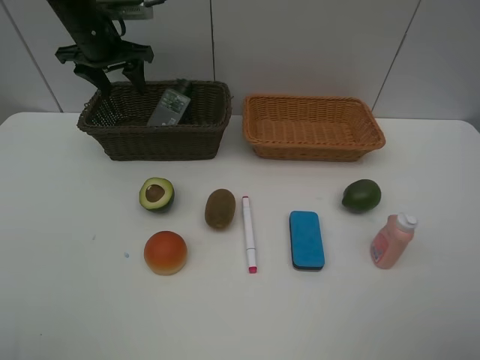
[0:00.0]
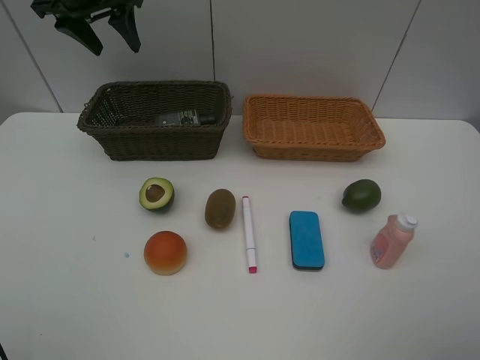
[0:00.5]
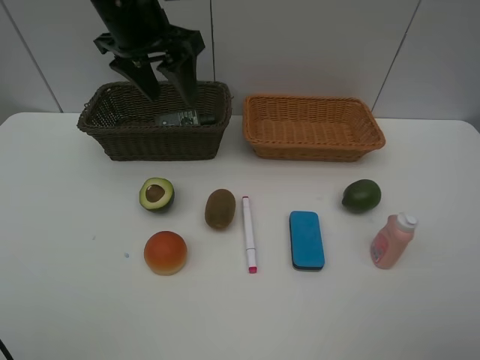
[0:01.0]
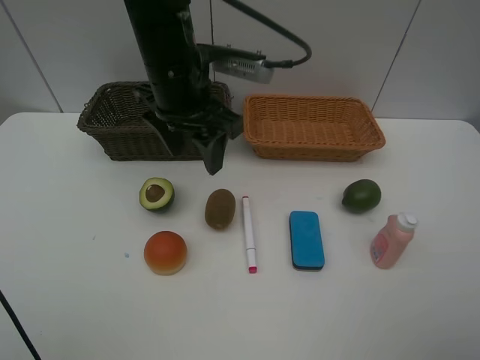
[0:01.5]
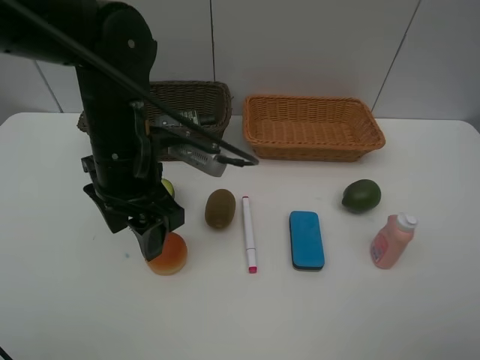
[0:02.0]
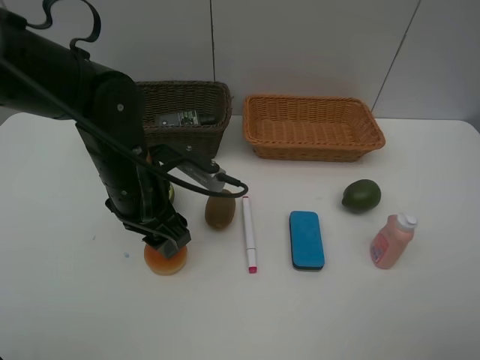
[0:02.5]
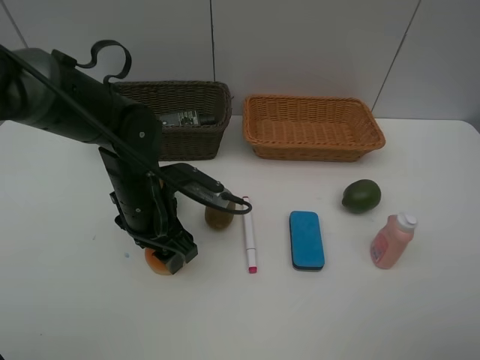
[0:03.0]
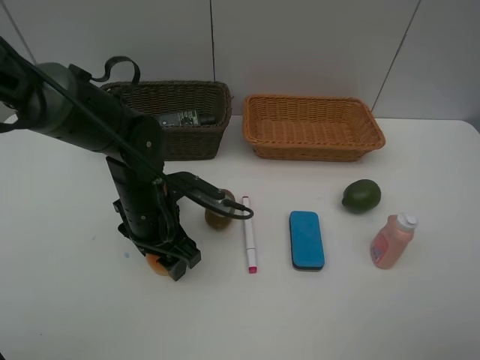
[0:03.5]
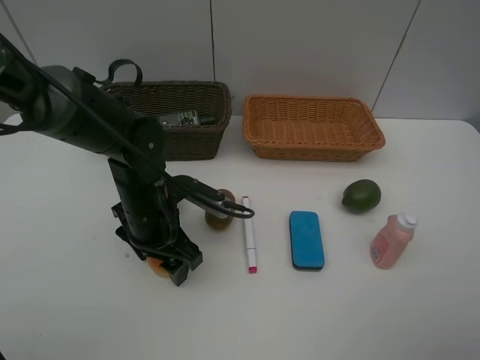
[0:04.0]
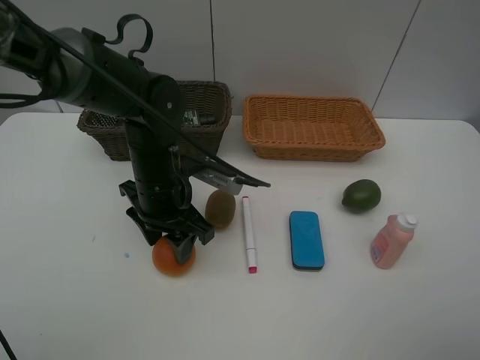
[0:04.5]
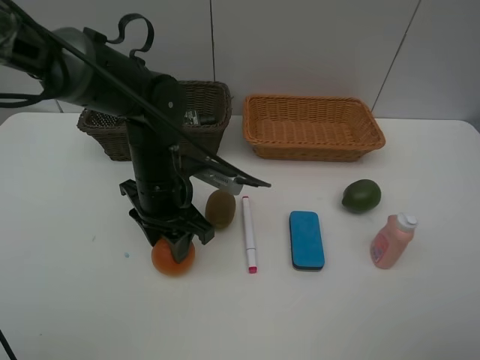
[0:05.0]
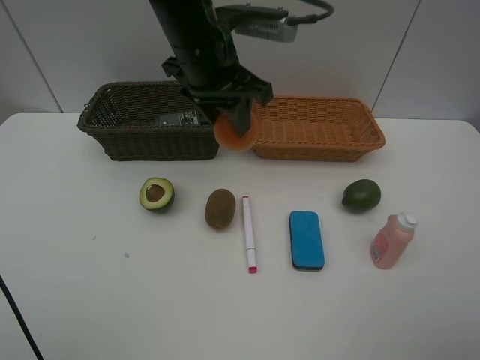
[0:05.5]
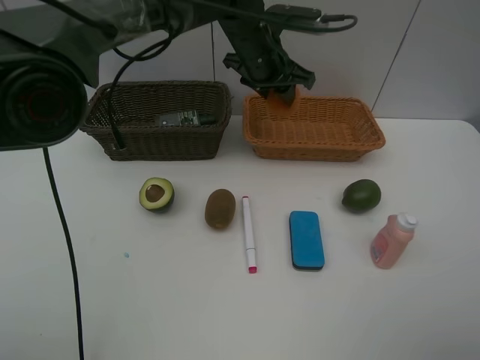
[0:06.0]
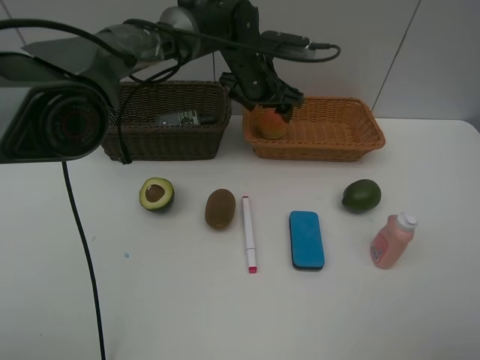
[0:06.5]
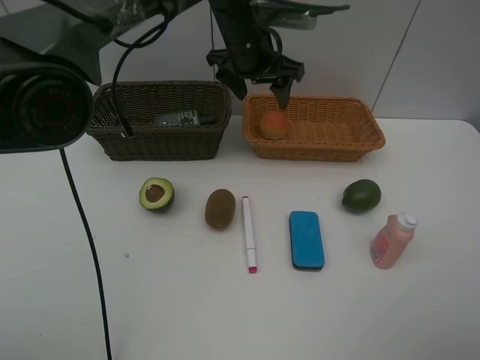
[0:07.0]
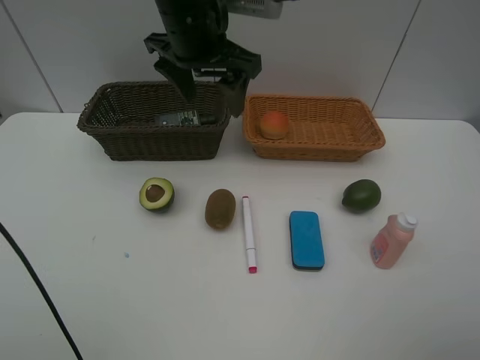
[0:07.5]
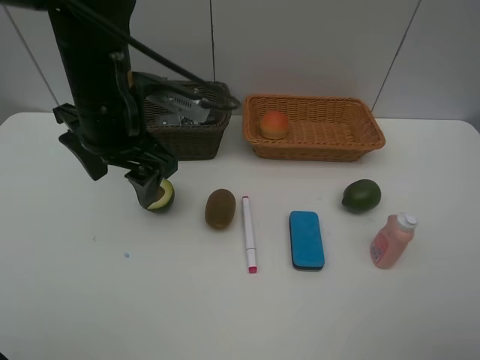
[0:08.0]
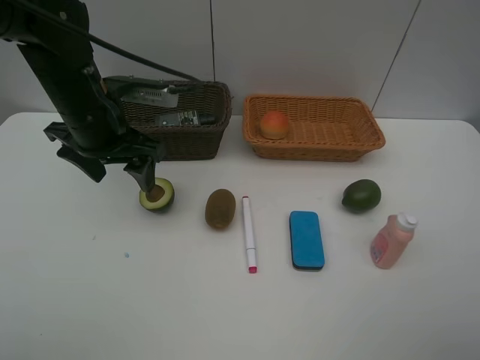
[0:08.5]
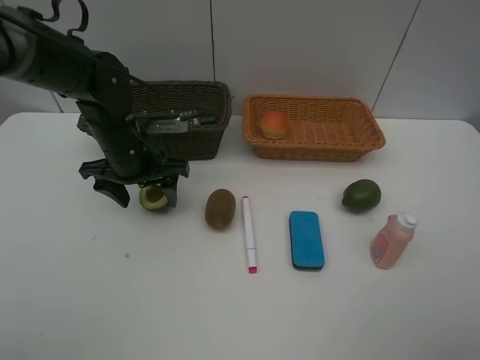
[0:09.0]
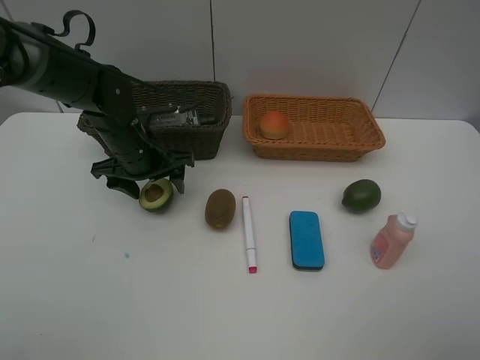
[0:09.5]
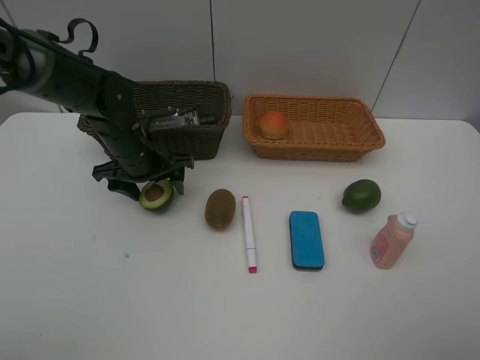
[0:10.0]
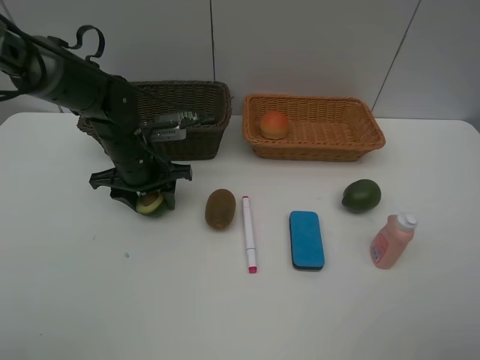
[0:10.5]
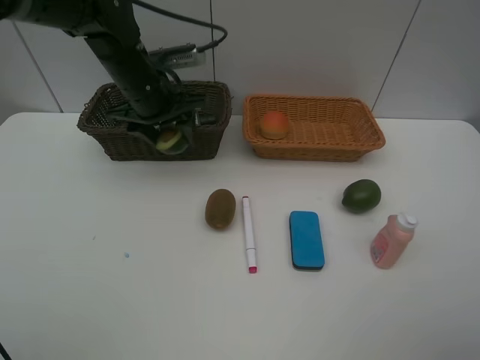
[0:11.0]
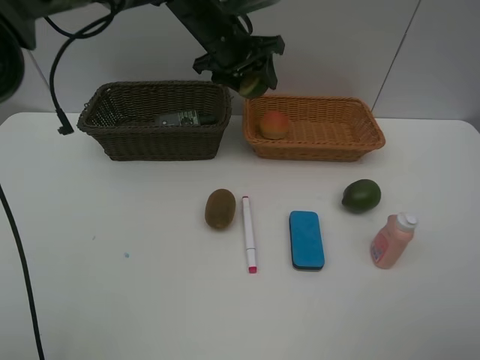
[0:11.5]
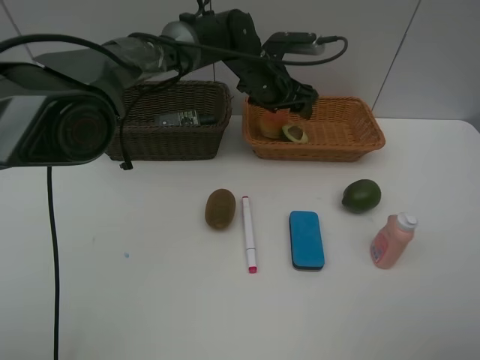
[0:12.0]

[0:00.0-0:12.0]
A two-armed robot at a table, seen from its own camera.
Task of the whole recording: Place multiple objects separately in different baskets.
Step, 0:00.5 to 0:05.0: Pick up egg yolk pastry with left gripper.
Step, 0:05.5 to 0:06.5: Place the egg yolk pastry in the light basket with left gripper.
Step, 0:07.0 to 0:10.5: Pick up the avocado with left gripper.
0:00.0 to 0:02.0: The left gripper goes some 25 cm backward and to the right.
0:02.0 to 0:04.0: The left gripper moves downward, roughly 10 cm.
0:04.0 to 0:06.0: The left gripper heads forward, to the right and upward, covering approximately 25 cm, and closes.
0:06.0 to 0:08.0: The left gripper moves backward and to the left, roughly 25 cm, and opens its fingers.
0:08.0 to 0:10.0: The left gripper is displaced downward and forward by about 15 cm.
0:10.0 to 0:12.0: The left gripper shifts approximately 20 cm to the right and forward, and closes, then reopens.

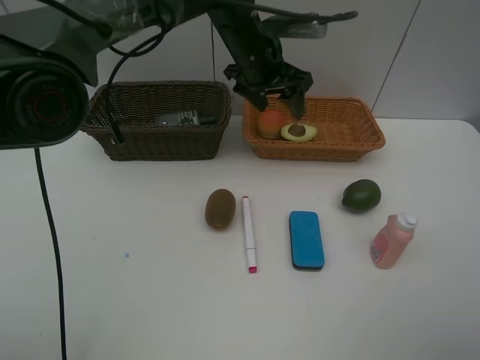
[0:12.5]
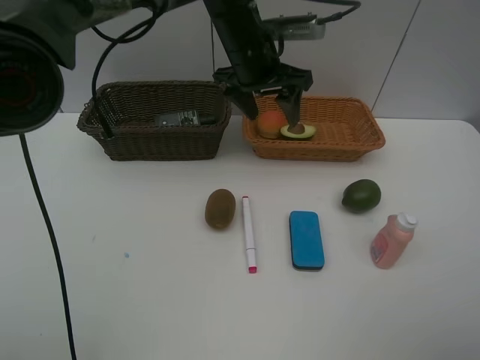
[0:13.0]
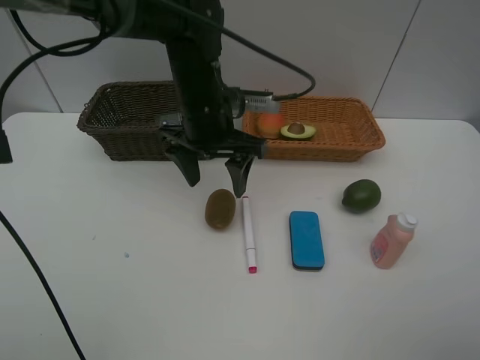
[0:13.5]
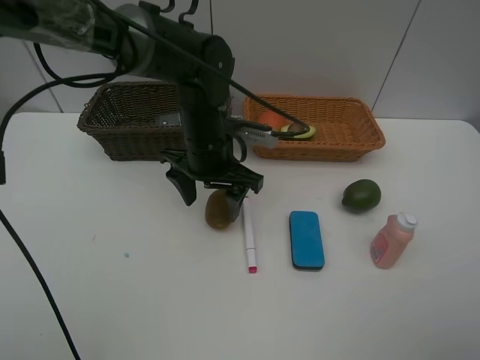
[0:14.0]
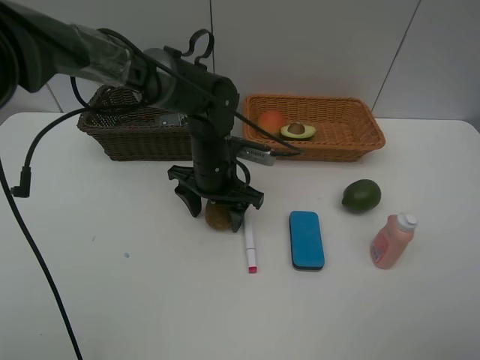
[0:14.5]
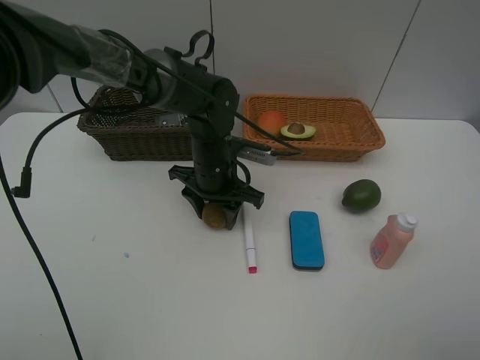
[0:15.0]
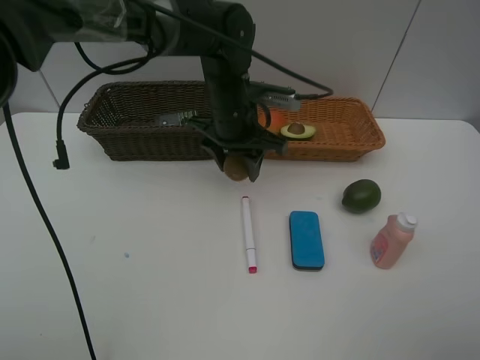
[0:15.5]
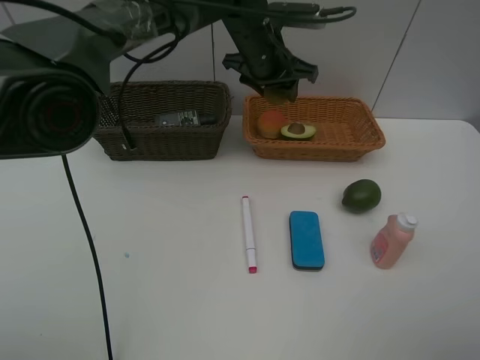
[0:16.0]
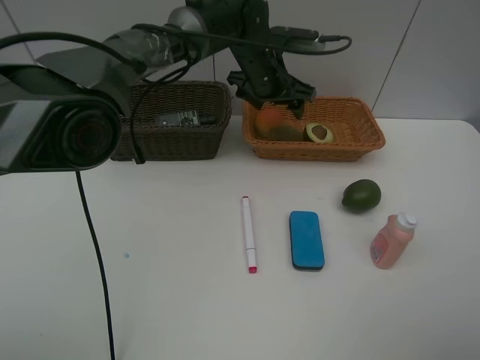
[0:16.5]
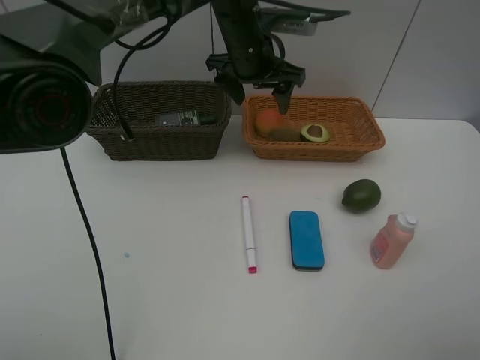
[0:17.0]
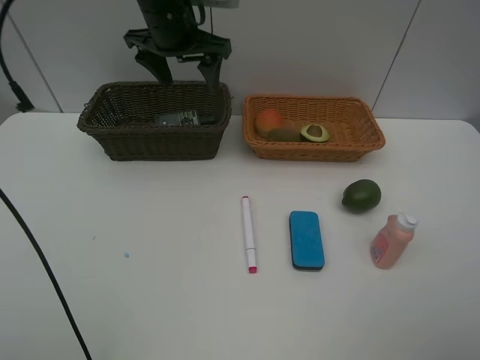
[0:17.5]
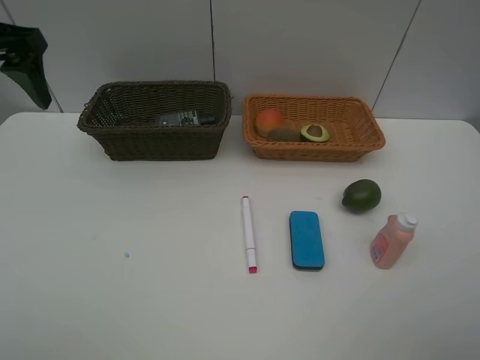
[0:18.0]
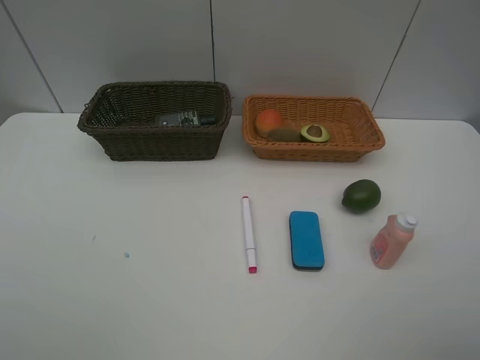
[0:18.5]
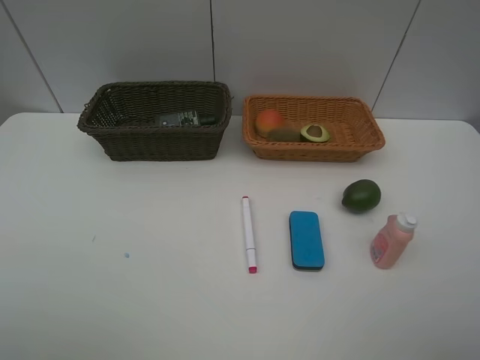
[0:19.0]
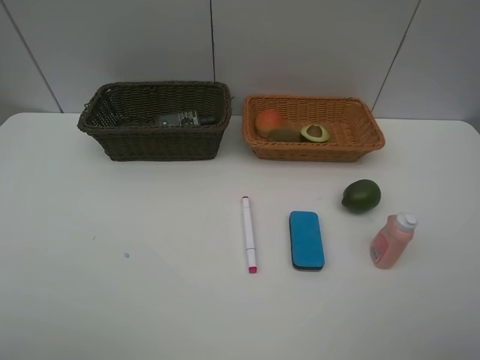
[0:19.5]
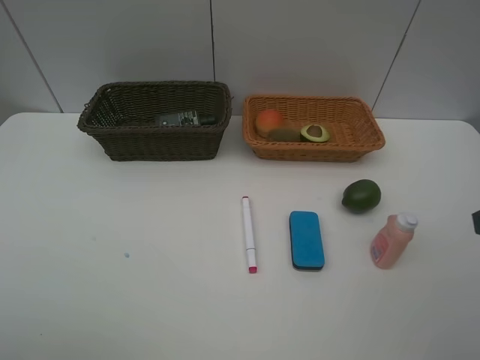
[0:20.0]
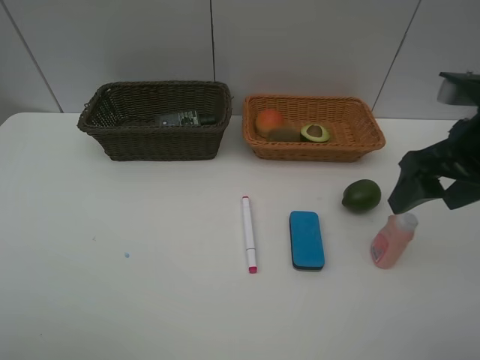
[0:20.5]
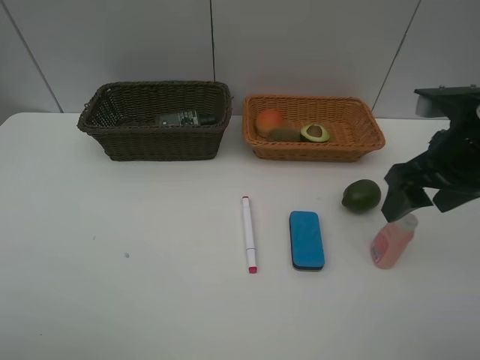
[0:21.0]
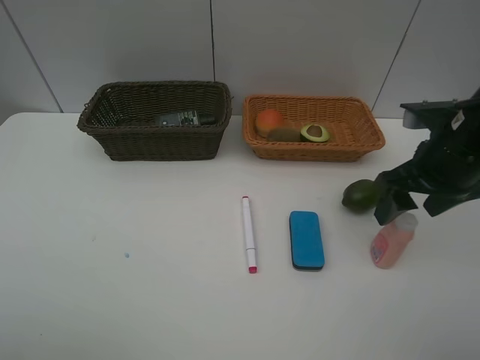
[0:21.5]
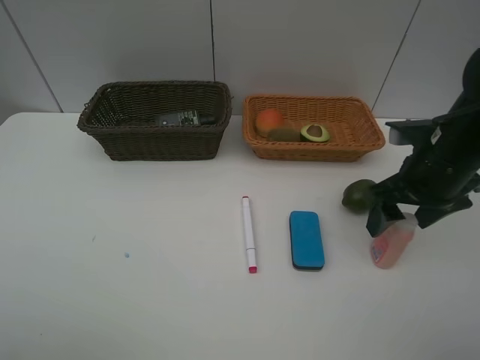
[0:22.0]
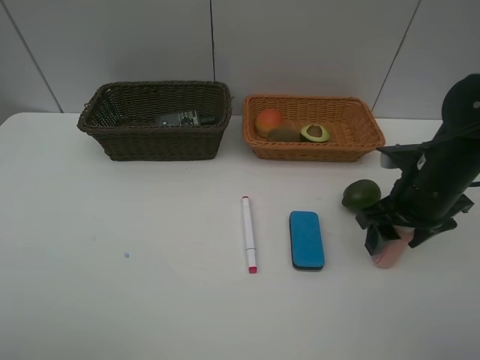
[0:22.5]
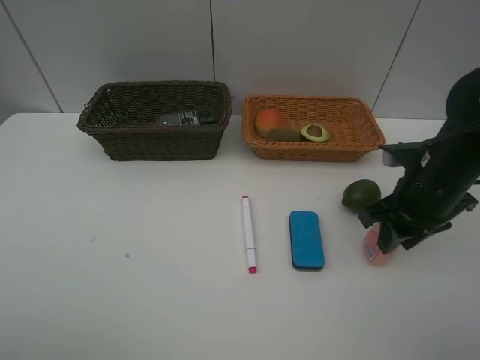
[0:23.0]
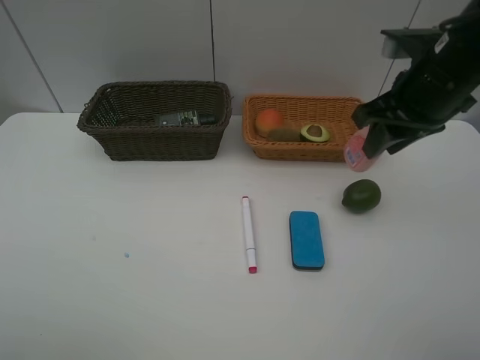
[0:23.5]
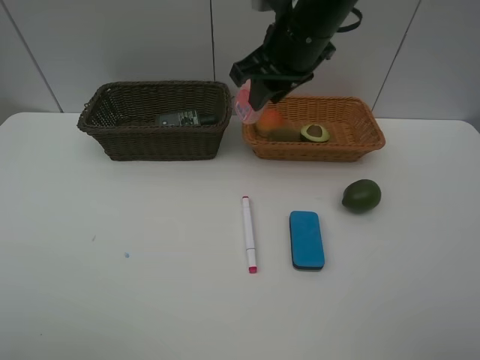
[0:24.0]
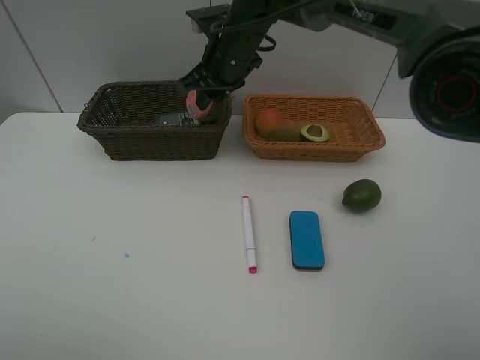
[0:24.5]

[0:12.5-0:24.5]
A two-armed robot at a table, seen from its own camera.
Task of the whole recording: Place multiple objects separately in different baskets.
Step, 0:12.5 to 0:15.0: Pick up kiwi with left gripper.
Step, 0:15.5 to 0:16.5: Place the kiwi in the light basket with left gripper.
Step, 0:17.0 to 0:23.0: Pick up the laundry detergent with right gripper.
0:12.5 to 0:14.5: The left gripper is displaced downward and backward by roughly 15 cm.
0:14.5 to 0:16.5: The left gripper travels forward, upward and to the right by about 15 cm, and closes and opens again.
0:16.5 to 0:18.5: The left gripper heads backward and to the left, covering about 50 cm.
0:18.5 to 0:20.5: The right gripper moves forward, approximately 20 cm.
0:20.5 to 0:22.5: The right gripper goes some 10 cm downward.
0:22.5 to 0:24.5: The right gripper moves to the left and forward, some 30 cm, and closes.

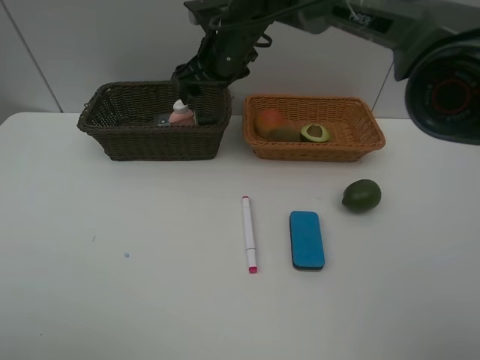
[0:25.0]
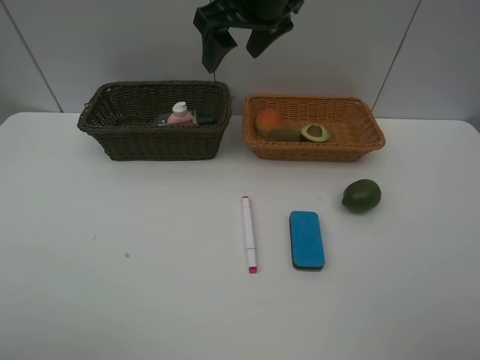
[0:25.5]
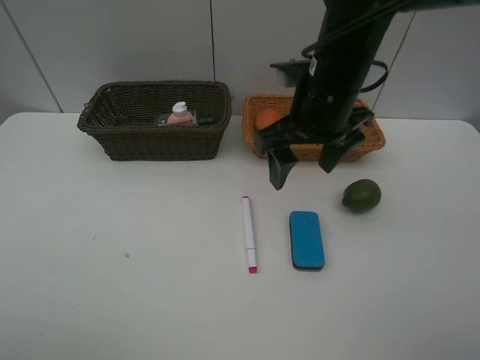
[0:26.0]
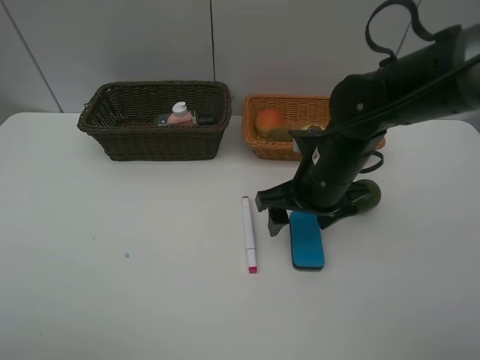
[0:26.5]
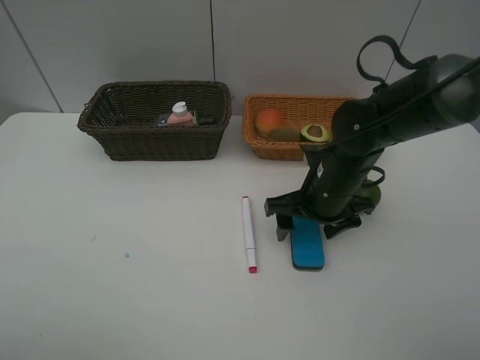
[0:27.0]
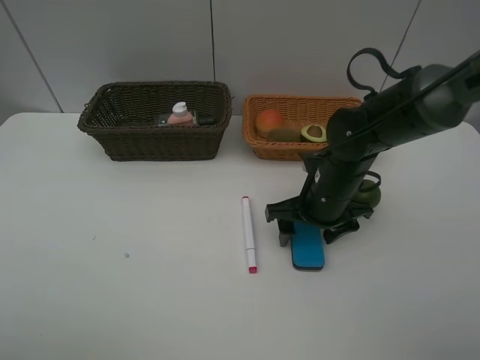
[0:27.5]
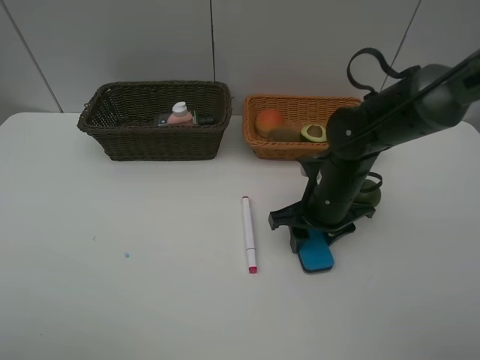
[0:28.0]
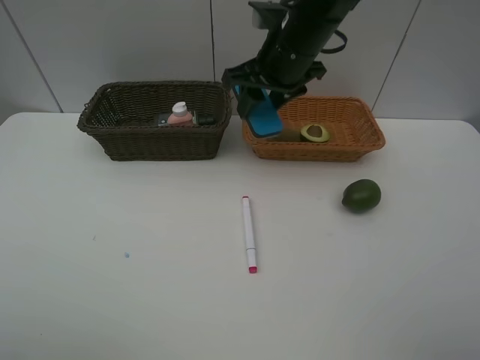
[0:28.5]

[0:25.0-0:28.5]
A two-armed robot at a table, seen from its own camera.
Task of the whole recording: Place multiple objects separately in different baskets.
Step, 0:25.5 to 0:28.0: Pick up blackboard eraser with right gripper.
0:25.0 to 0:27.0: The right gripper goes some 25 cm backward, to the right and downward.
0:27.0 to 0:28.5: The right gripper moves upward, forward and to the left, roughly 20 cm, and closes its fingers.
